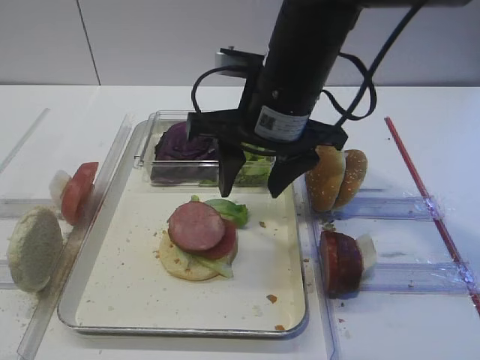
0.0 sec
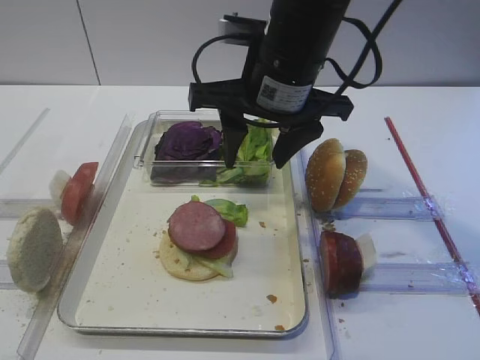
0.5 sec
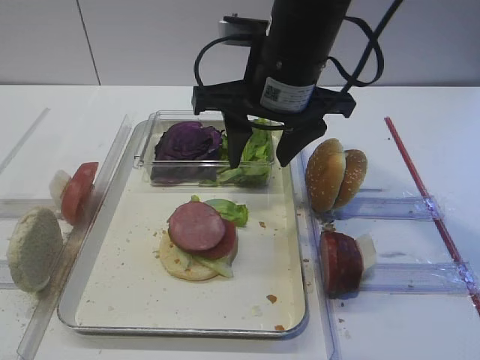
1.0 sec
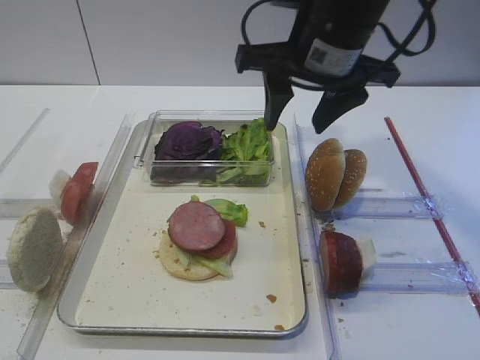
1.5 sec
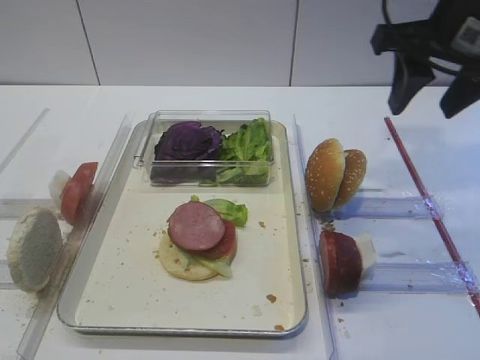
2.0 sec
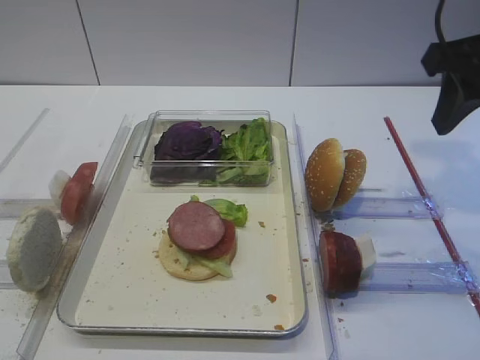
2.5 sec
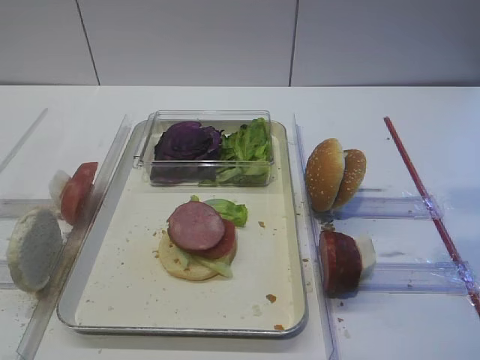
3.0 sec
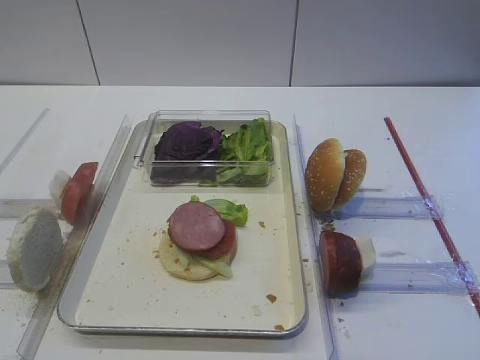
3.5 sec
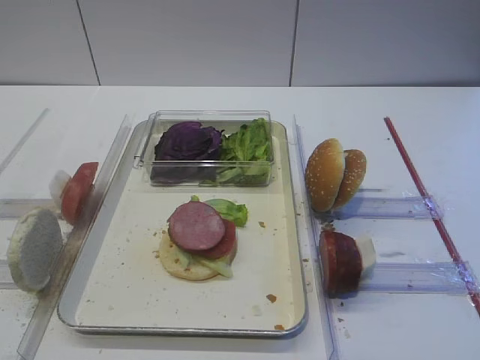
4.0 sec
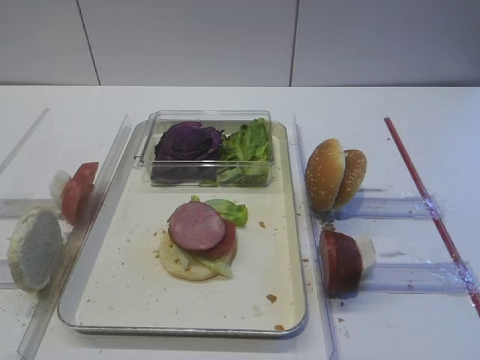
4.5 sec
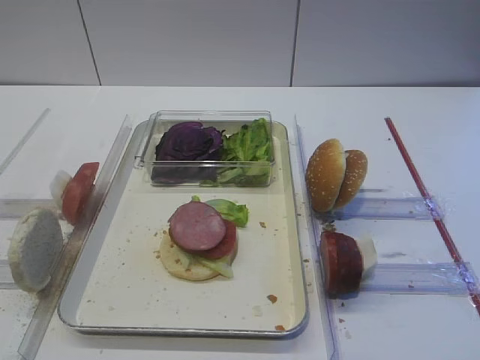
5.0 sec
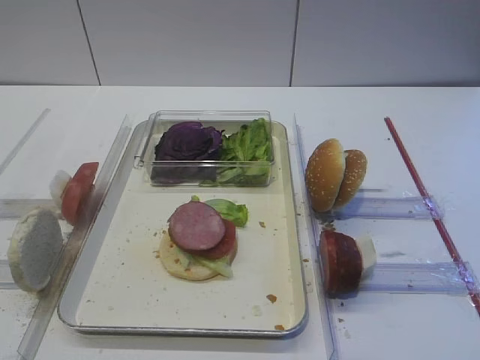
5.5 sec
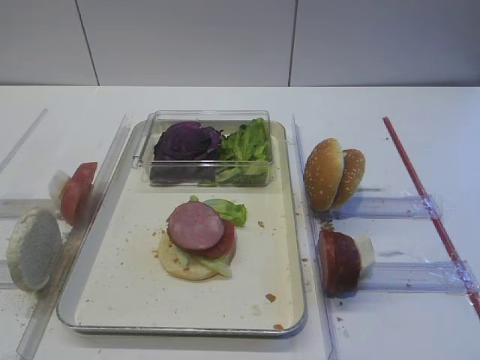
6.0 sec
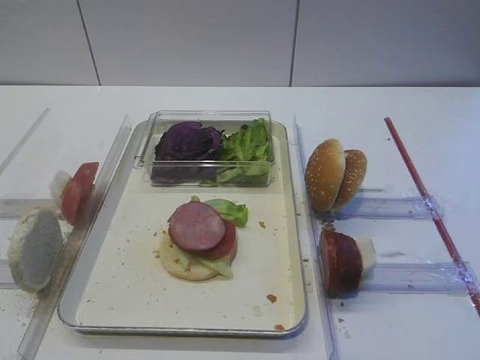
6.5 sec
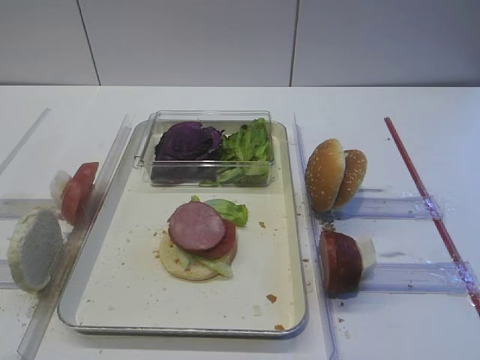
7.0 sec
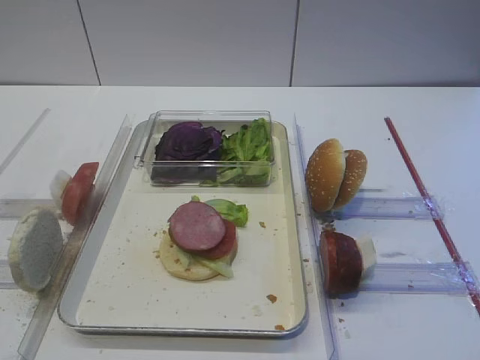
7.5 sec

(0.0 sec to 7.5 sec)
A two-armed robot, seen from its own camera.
0.0 sec - 2.0 sec: The right gripper travels to the right and upward by roughly 15 cm.
2.0 sec - 4.0 sec: The right gripper shifts approximately 30 cm backward.
